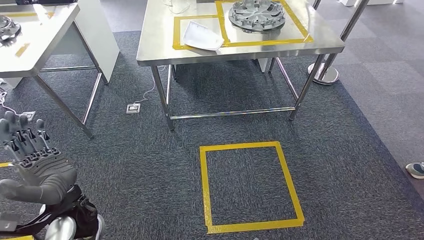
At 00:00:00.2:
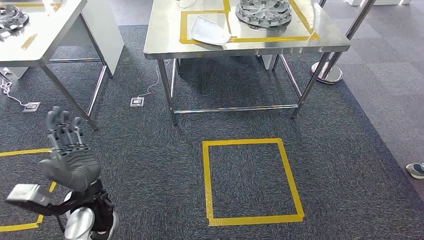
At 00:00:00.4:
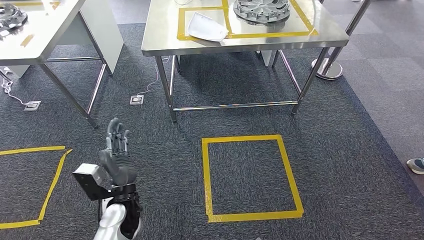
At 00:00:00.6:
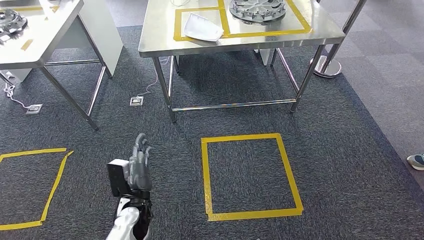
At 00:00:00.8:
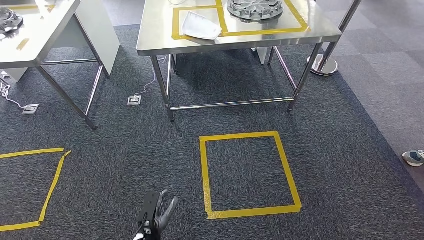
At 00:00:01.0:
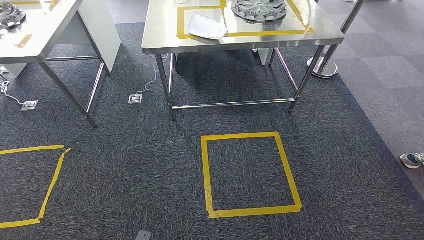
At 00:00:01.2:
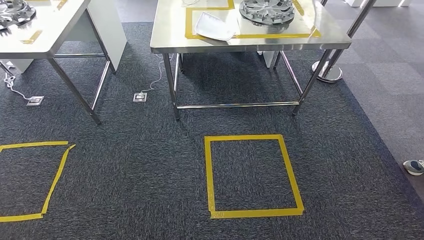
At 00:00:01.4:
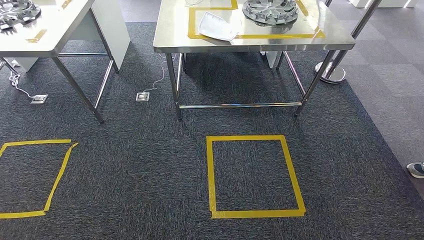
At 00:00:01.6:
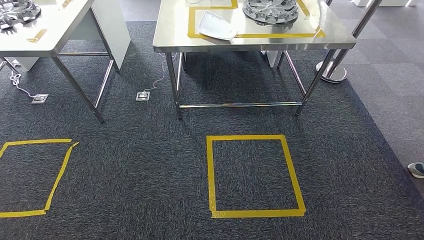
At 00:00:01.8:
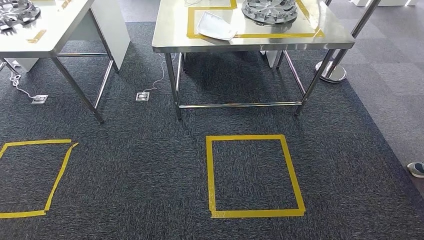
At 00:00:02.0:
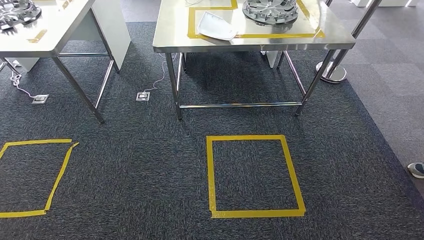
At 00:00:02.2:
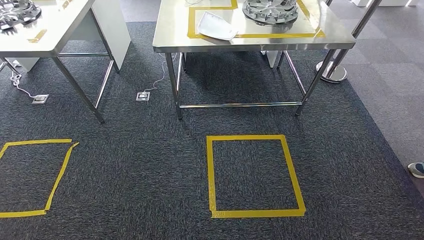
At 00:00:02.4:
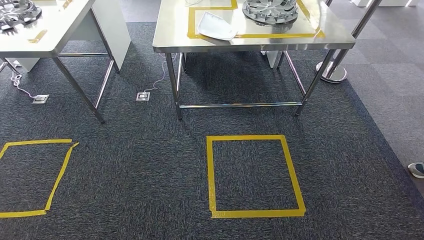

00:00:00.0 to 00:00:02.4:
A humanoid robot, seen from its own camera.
Step, 00:00:00.0 to 00:00:02.4: Move to the initial position of the shelf.
